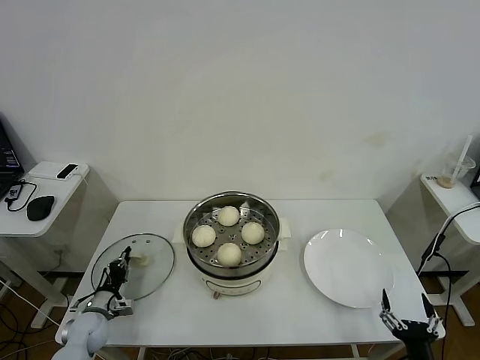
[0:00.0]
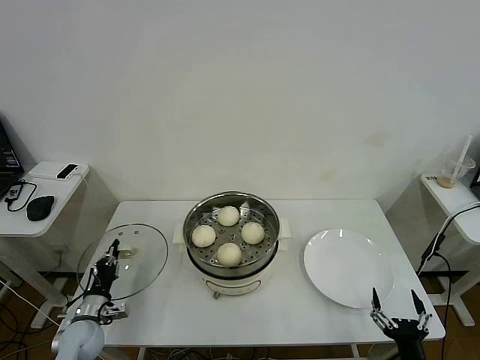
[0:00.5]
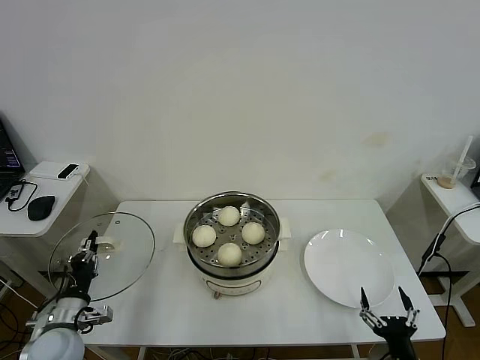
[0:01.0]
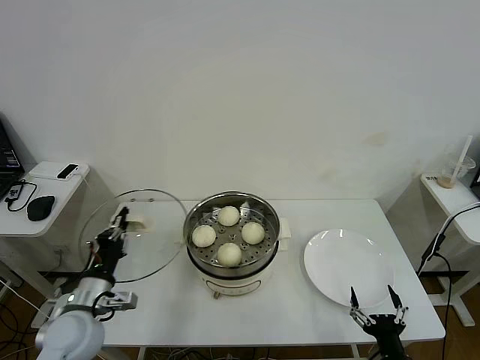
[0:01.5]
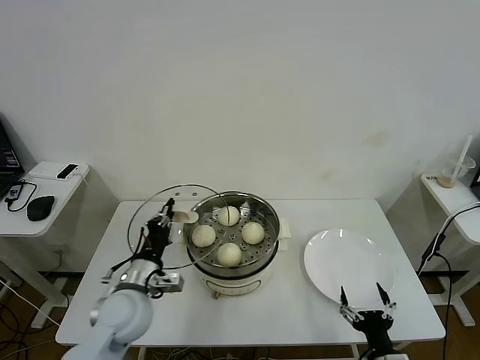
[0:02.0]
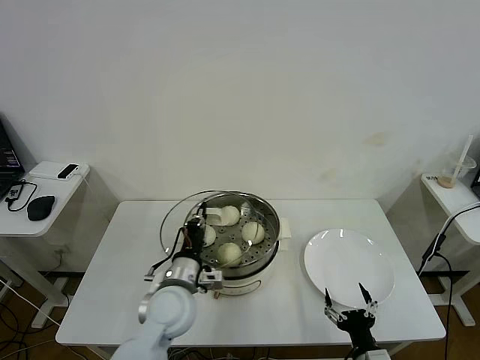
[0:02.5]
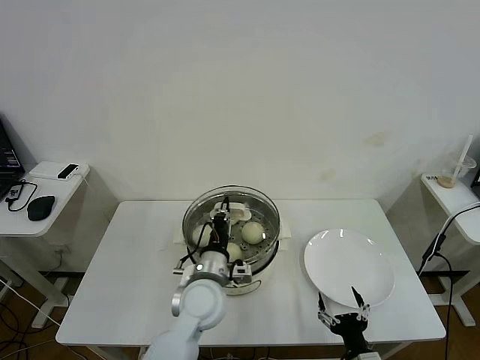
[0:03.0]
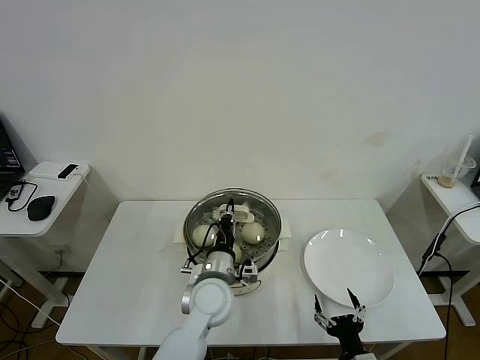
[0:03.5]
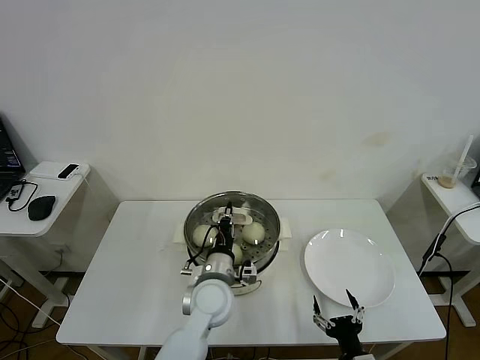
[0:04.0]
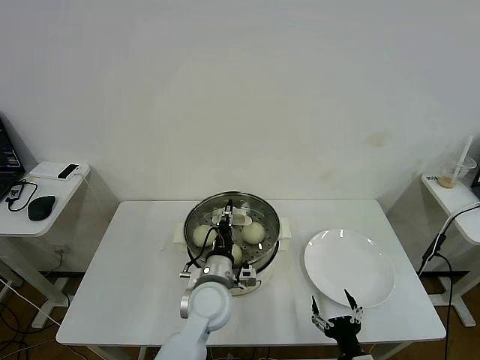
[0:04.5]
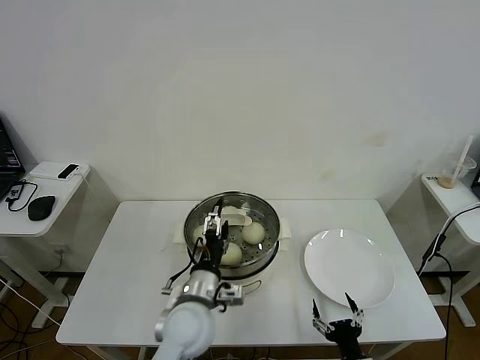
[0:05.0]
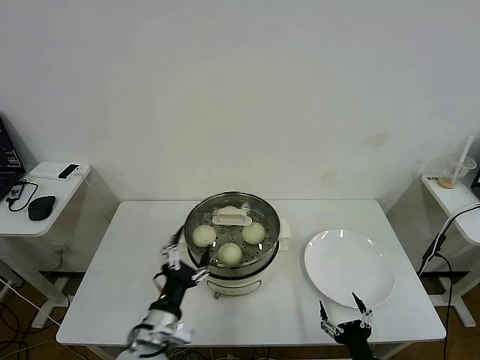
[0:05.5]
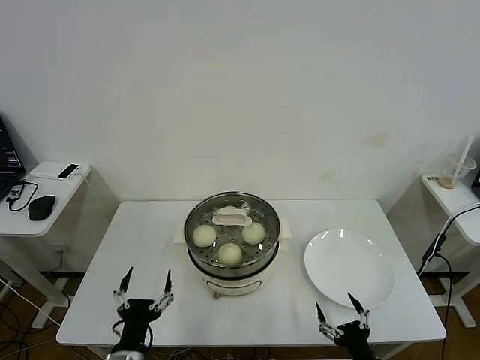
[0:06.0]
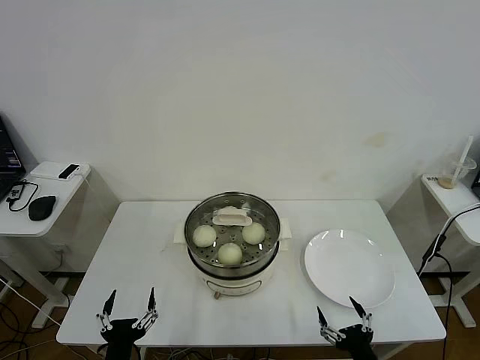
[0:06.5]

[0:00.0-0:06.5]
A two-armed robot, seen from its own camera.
Task of the whole recording: take steamed baozi put them in steamer then cover it.
Step, 0:00.5 to 0:05.0: Place the pot lid on the steamer with left gripper.
0:00.0 to 0:02.0: The left gripper travels upward and to the right by some 25 cm. Meanwhile the right gripper goes some 5 cm to the left.
0:02.0 to 0:04.5: The left gripper moves to the right, approximately 15 cm. The right gripper shifts by some 5 cm.
0:04.5 to 0:06.5: The right gripper ends up about 5 cm from where it was; the left gripper is displaced backward and to the left by roughly 30 cm, and opens its fingers.
